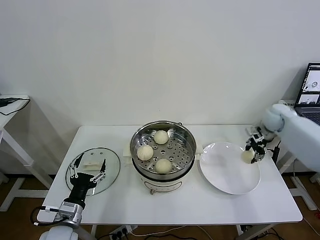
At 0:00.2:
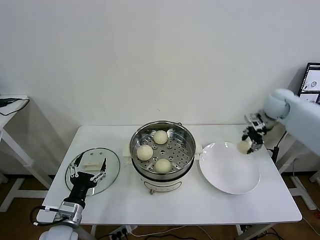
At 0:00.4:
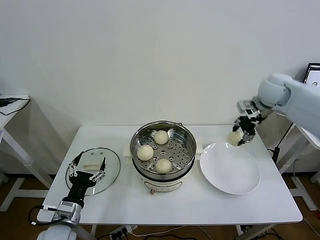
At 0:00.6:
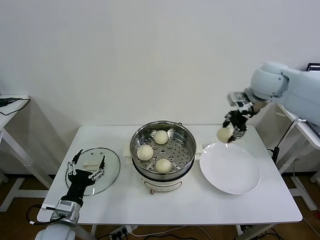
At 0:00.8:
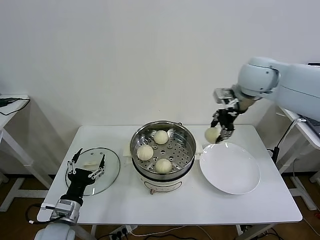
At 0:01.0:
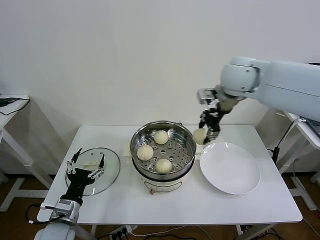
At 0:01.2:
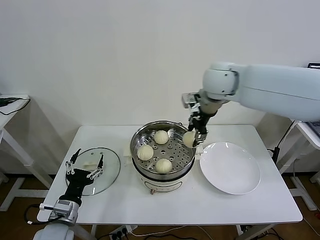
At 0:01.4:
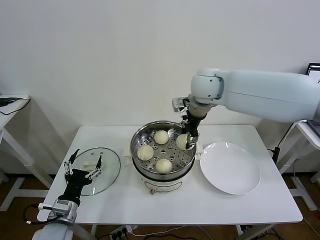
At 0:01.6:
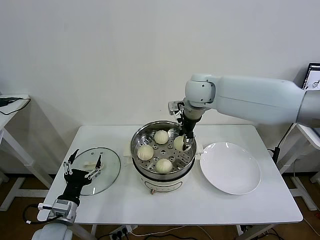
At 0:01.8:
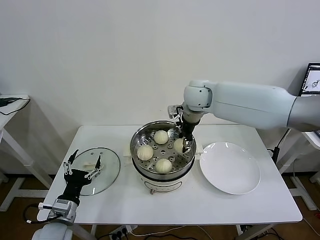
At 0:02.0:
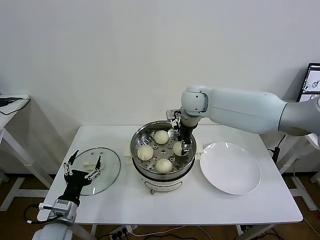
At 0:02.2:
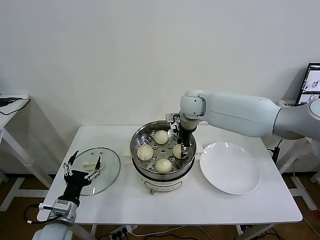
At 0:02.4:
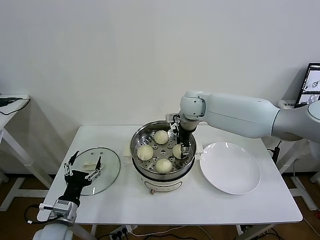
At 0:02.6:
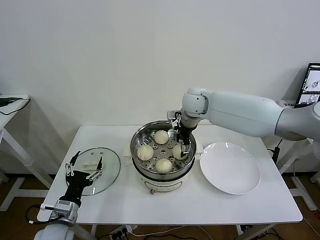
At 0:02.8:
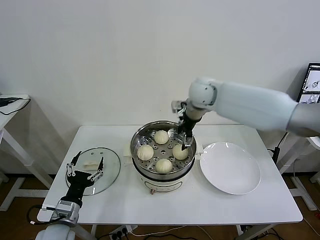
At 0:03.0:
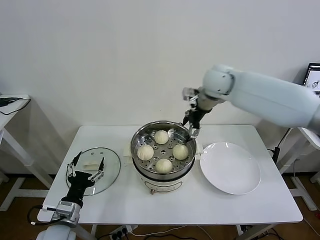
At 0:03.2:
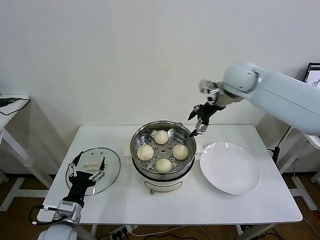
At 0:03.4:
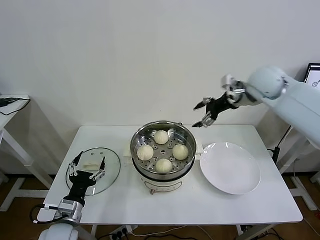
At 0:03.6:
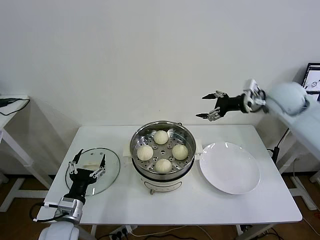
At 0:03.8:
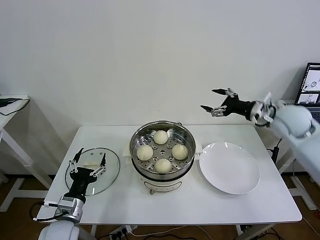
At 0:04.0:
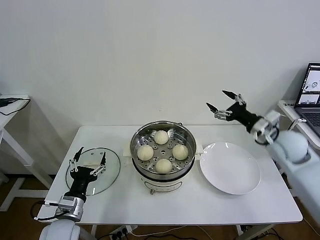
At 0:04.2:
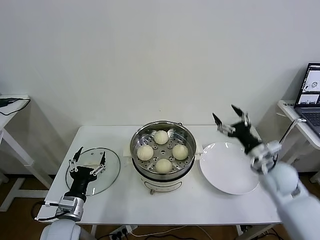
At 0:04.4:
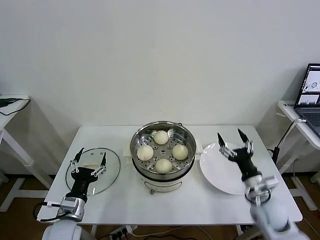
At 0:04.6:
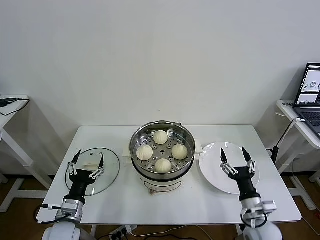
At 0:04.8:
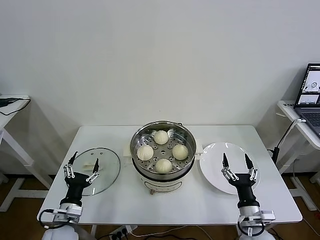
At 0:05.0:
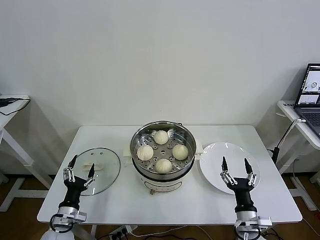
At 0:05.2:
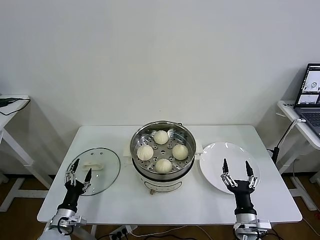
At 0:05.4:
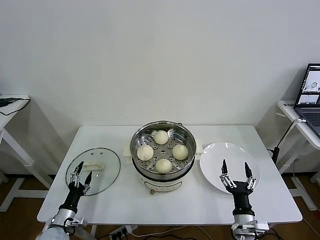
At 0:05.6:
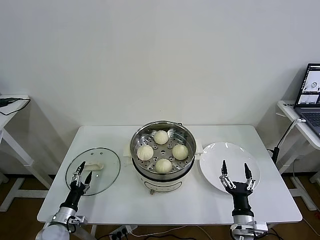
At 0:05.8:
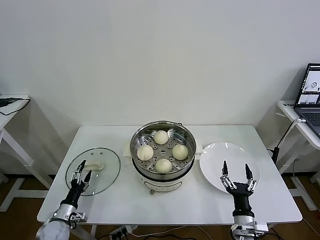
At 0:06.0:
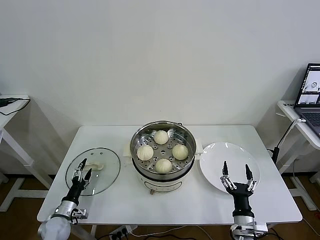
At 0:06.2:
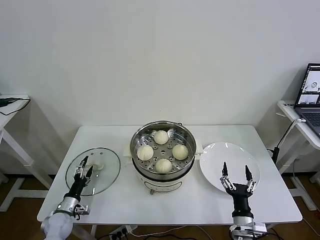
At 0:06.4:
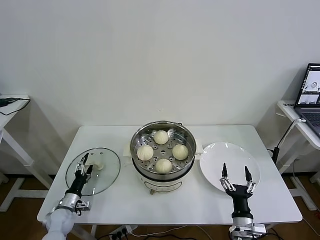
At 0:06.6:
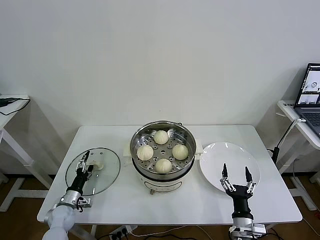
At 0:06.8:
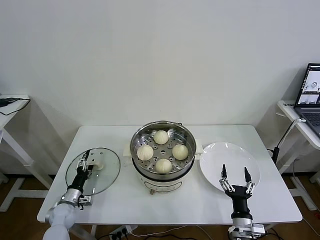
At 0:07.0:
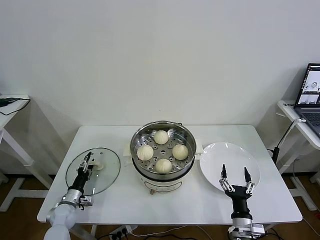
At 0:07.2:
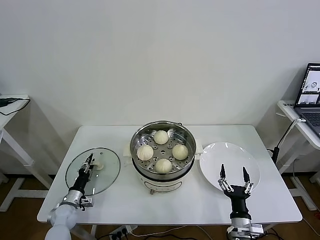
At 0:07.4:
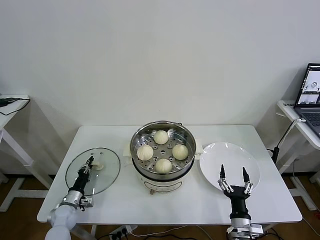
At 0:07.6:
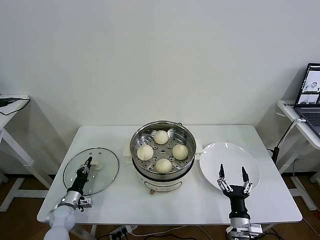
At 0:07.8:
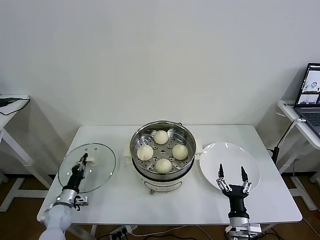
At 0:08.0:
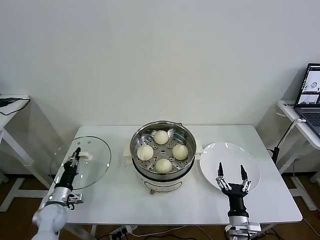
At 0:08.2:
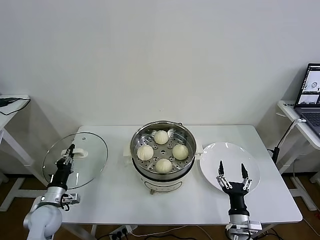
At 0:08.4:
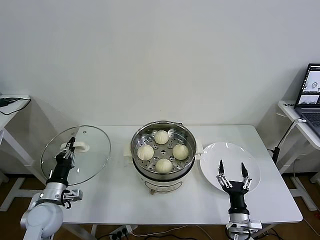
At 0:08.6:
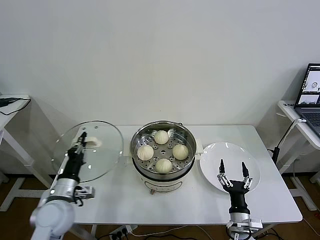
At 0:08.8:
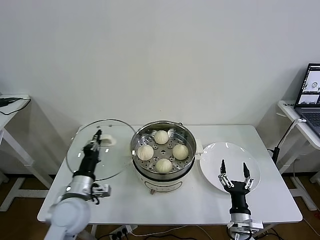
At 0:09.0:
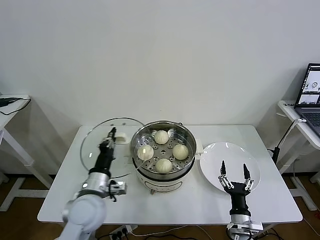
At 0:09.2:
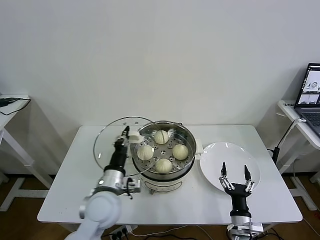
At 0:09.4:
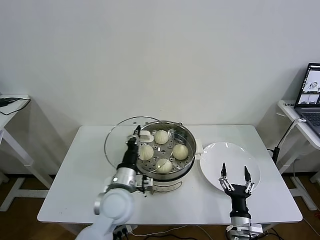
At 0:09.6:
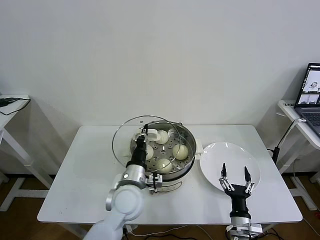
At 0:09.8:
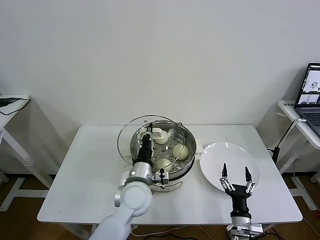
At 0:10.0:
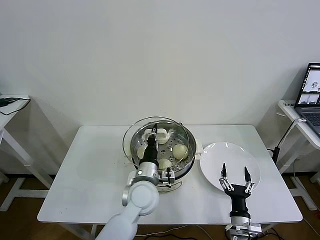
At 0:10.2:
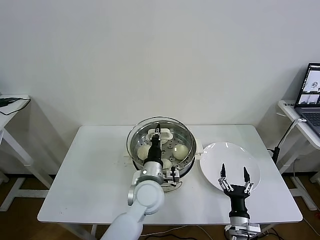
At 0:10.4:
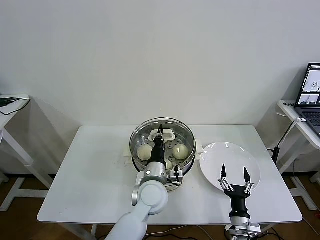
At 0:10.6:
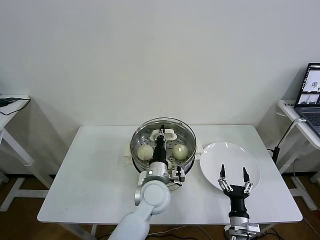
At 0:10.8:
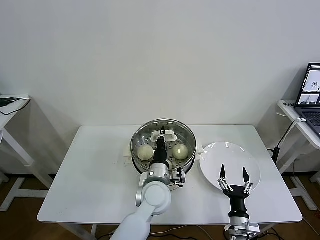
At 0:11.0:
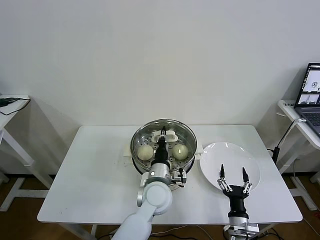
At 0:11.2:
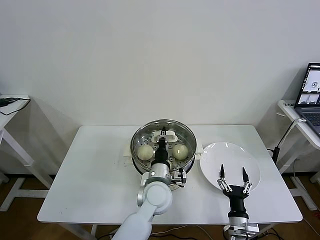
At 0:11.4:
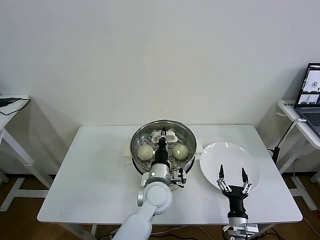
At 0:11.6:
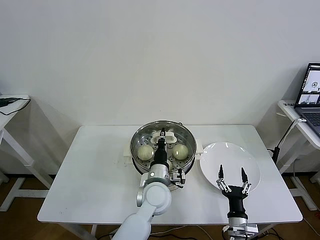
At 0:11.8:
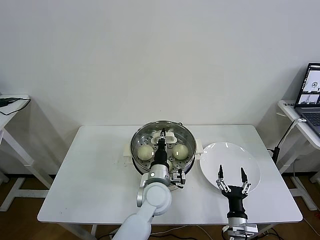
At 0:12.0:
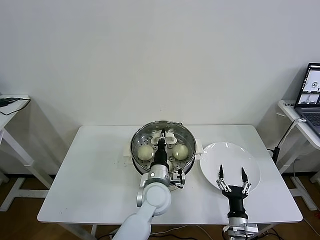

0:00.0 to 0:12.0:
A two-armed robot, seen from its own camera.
Task of the whole recording: take steamed baozi put them in steamer then cover it.
Step, 0:00.0 to 0:02.6: Place the baozi on the steamer with right gripper.
Step, 0:02.8 to 0:07.6: Grasp the pot lid with left gripper.
0:00.0 to 0:01.6: The right gripper travels to the left and upward by roughly 35 cm.
0:01.6 to 0:03.0: The right gripper travels to the right by about 5 cm, reaches about 5 cm downward, then returns, and opens up.
0:03.0 to 0:04.4: The right gripper moves downward, backward and to the right, about 40 cm.
0:04.4 to 0:06.0: The left gripper heads downward and to the left, covering some 20 cm; the right gripper moves backward, downward and to the left, roughly 15 cm.
0:06.0 to 0:07.6: The left gripper goes some 5 cm forward, and closes its fingers.
0:07.6 to 0:09.0: The left gripper is displaced upward and to the right by about 30 cm.
0:09.0 to 0:10.4: The left gripper shifts roughly 20 cm to the right.
0:10.4 to 0:12.0: The grippers stay close to where they were, moving slightly.

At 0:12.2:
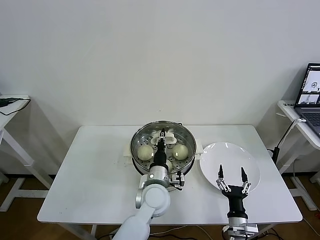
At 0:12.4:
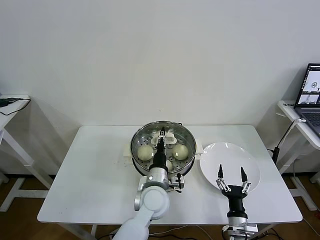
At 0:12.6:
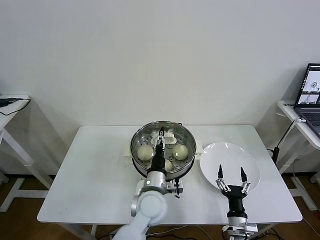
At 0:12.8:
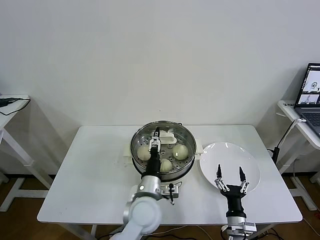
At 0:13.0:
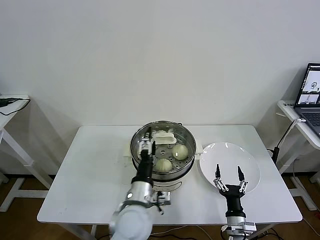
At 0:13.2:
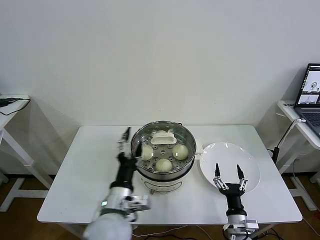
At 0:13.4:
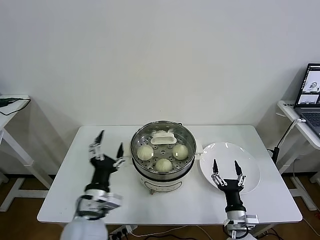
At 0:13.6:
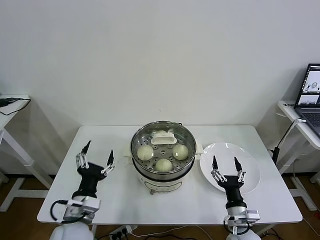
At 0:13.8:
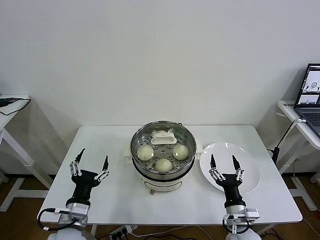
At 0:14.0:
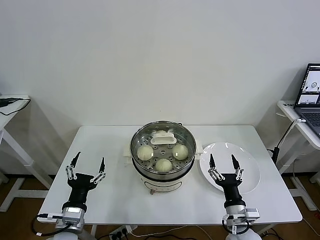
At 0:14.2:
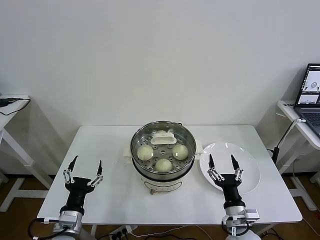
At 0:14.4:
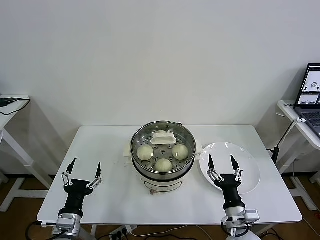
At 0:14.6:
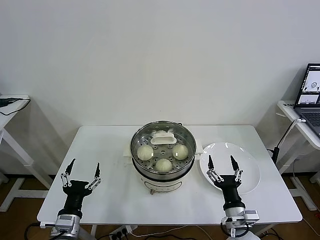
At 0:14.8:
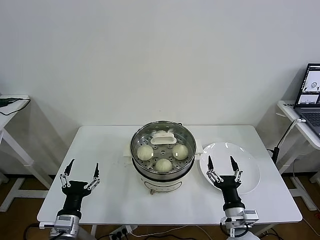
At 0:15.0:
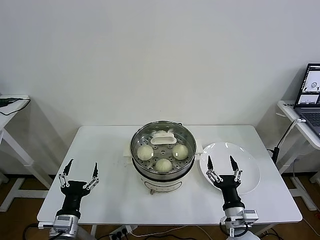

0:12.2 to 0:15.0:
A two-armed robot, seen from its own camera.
Task of the whole recording: take steamed baozi put them in steamer then cover it.
0:12.2 to 0:13.6: The left gripper travels to the left and backward by approximately 25 cm, and opens up; the right gripper changes place by approximately 5 cm.
0:13.6 to 0:15.0: The left gripper goes roughly 10 cm downward and to the left.
